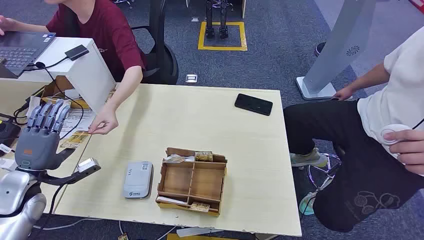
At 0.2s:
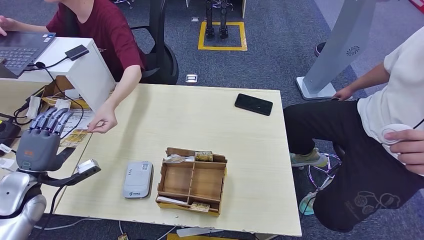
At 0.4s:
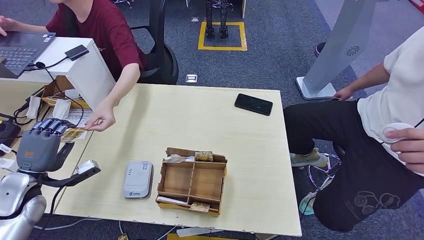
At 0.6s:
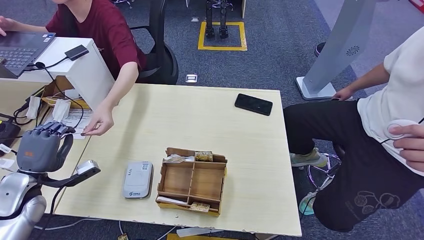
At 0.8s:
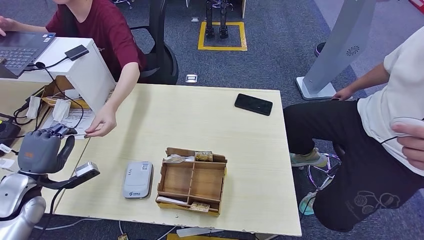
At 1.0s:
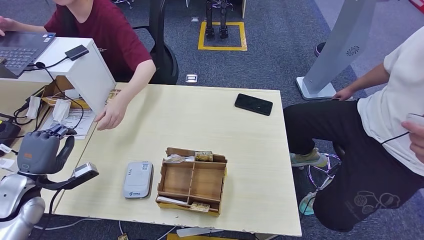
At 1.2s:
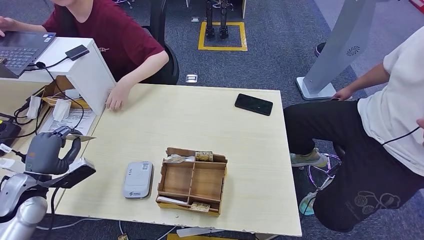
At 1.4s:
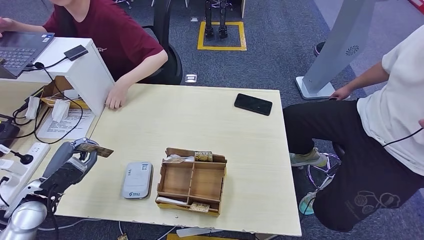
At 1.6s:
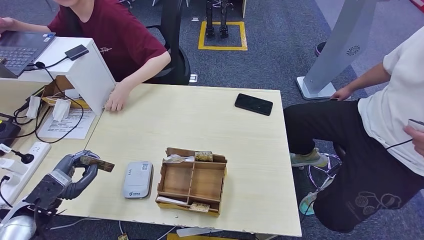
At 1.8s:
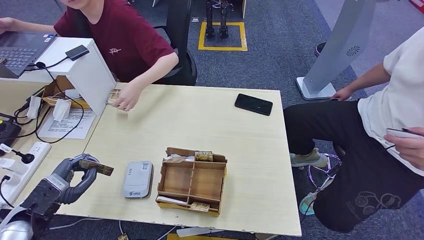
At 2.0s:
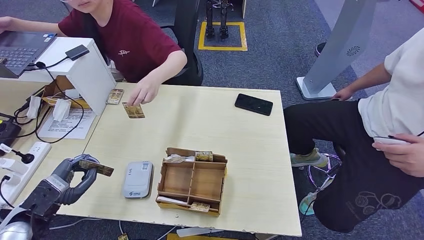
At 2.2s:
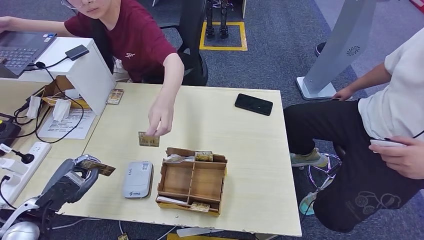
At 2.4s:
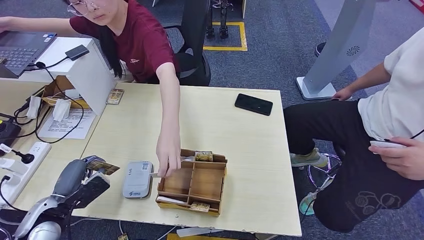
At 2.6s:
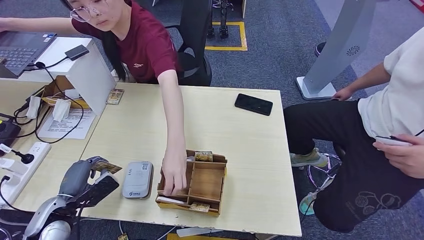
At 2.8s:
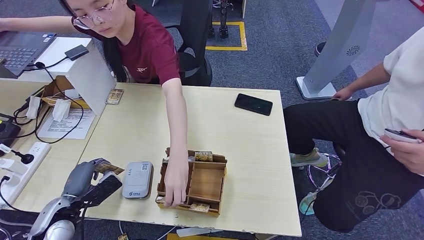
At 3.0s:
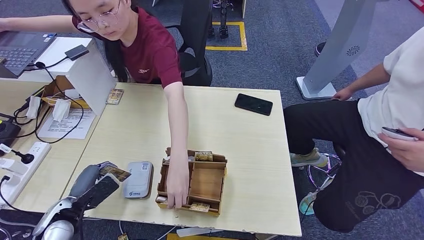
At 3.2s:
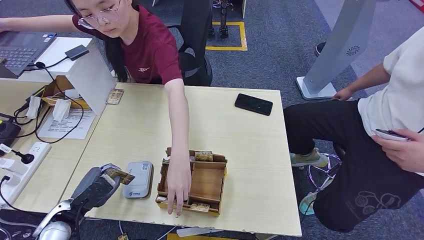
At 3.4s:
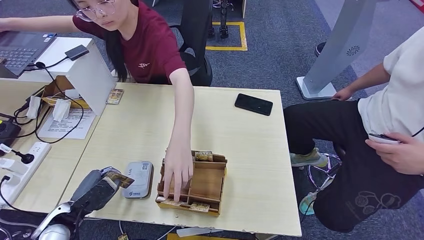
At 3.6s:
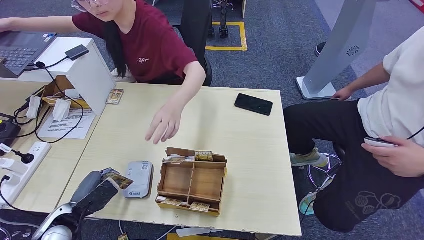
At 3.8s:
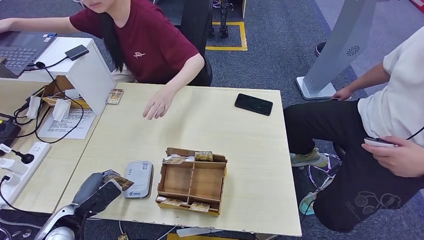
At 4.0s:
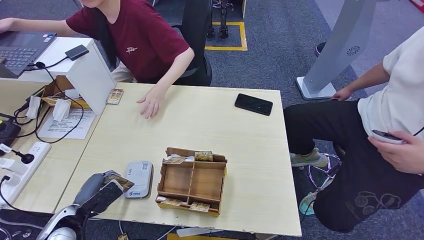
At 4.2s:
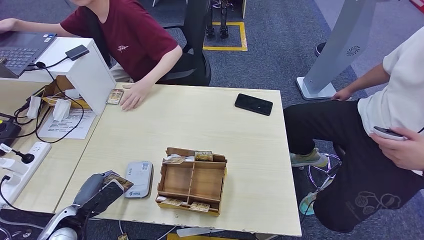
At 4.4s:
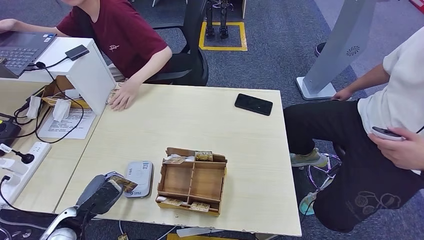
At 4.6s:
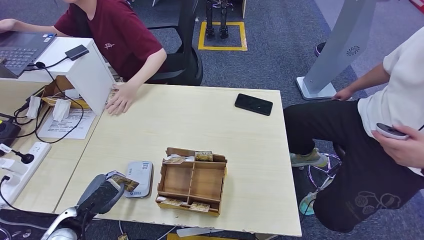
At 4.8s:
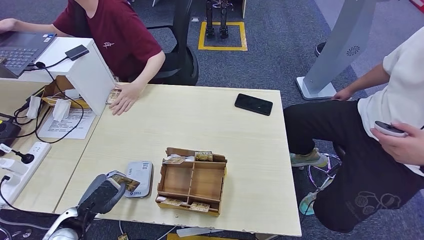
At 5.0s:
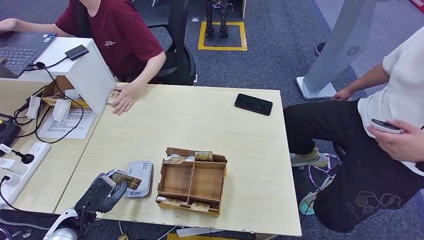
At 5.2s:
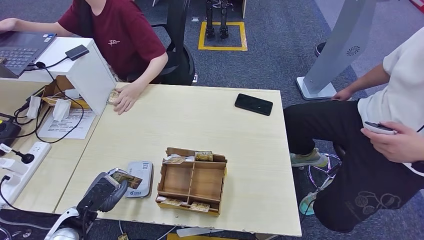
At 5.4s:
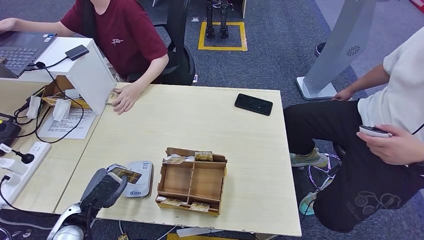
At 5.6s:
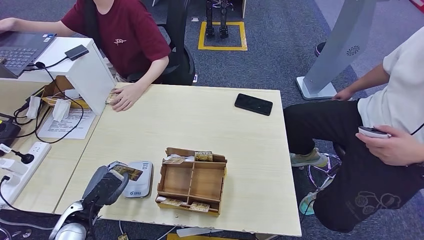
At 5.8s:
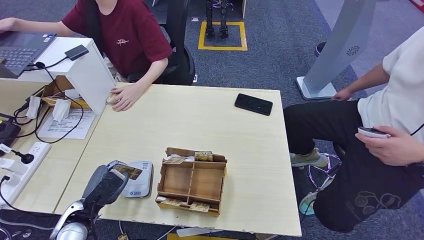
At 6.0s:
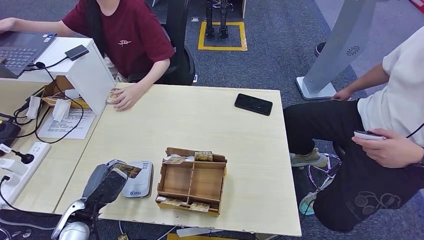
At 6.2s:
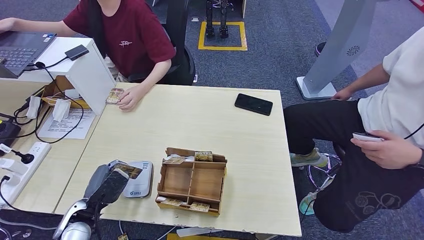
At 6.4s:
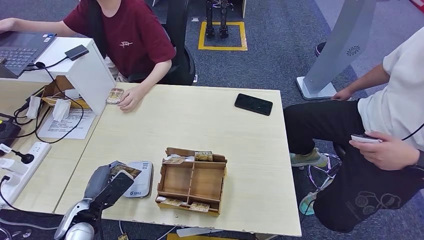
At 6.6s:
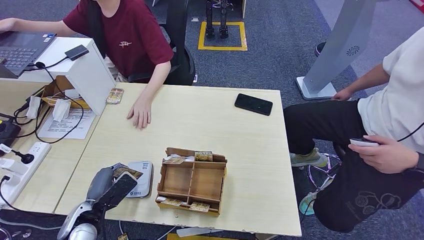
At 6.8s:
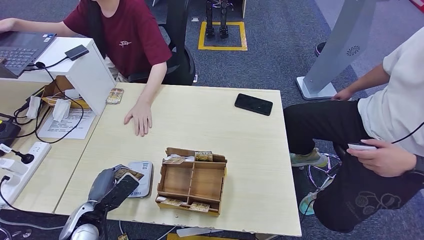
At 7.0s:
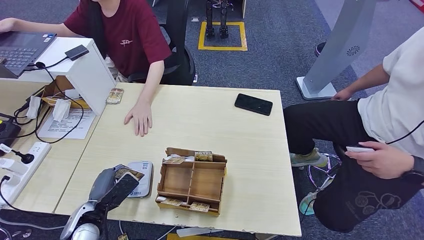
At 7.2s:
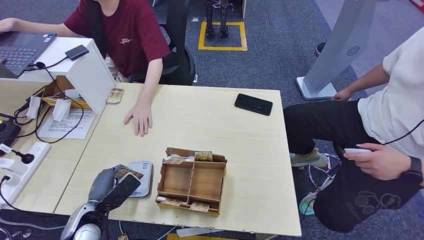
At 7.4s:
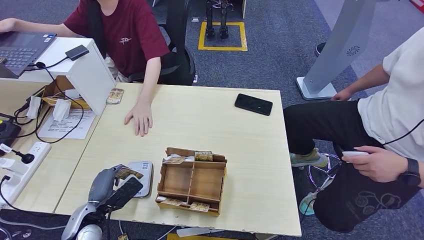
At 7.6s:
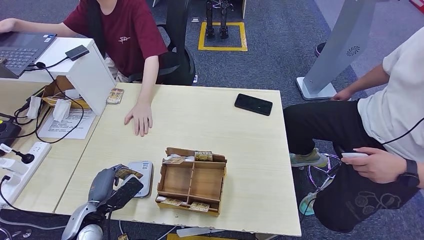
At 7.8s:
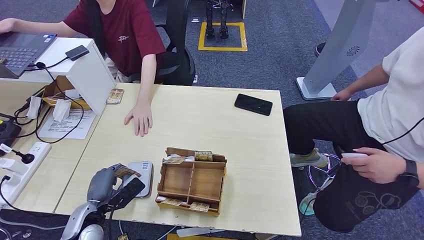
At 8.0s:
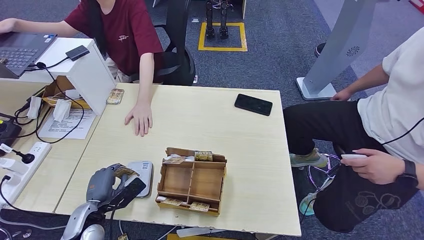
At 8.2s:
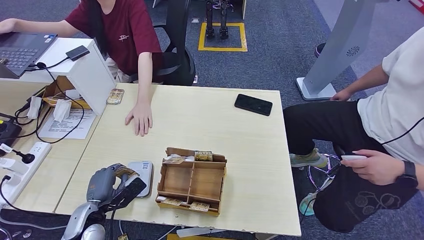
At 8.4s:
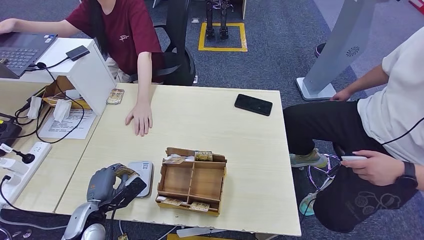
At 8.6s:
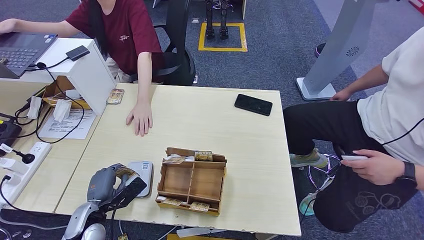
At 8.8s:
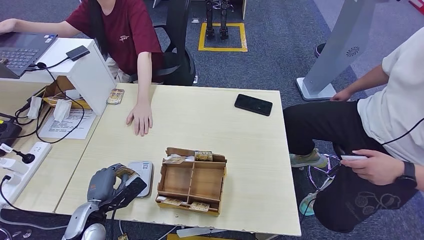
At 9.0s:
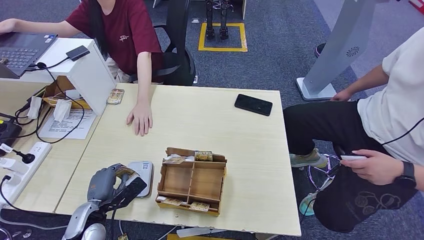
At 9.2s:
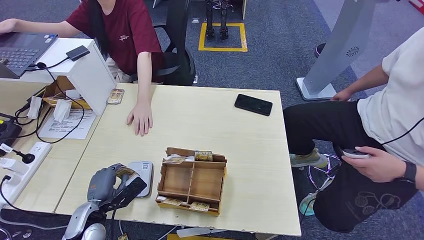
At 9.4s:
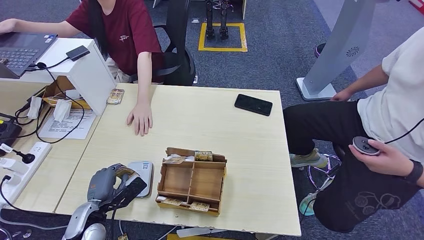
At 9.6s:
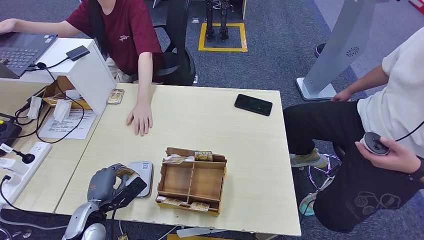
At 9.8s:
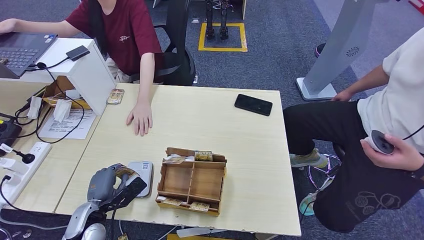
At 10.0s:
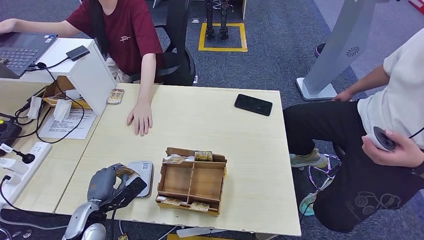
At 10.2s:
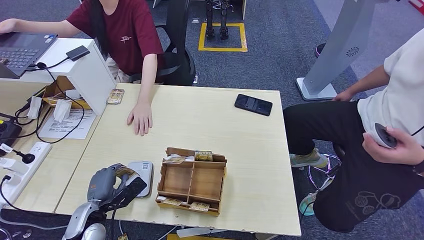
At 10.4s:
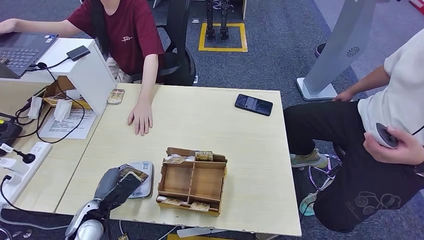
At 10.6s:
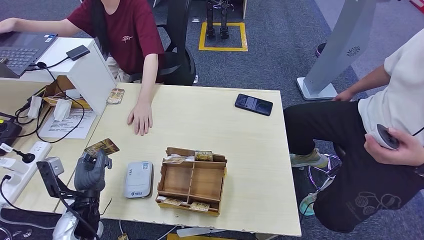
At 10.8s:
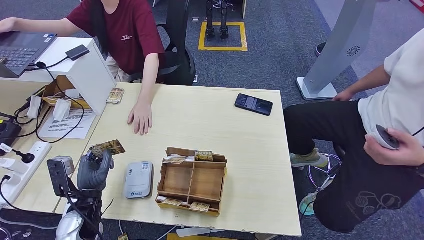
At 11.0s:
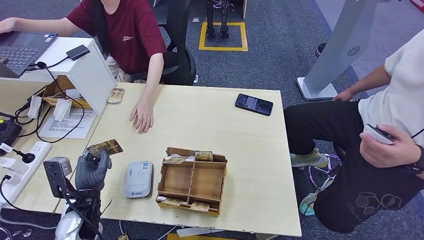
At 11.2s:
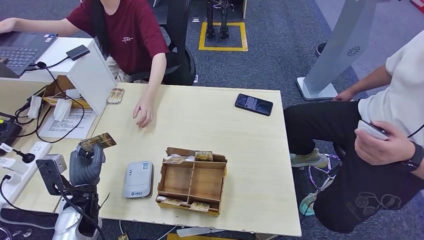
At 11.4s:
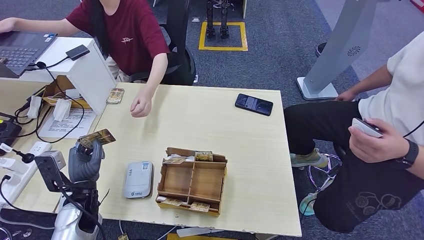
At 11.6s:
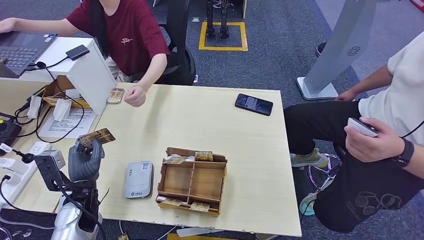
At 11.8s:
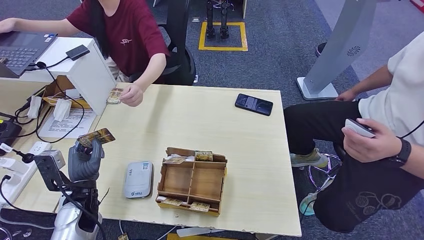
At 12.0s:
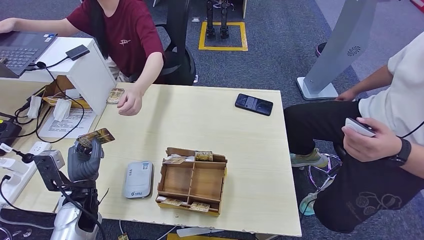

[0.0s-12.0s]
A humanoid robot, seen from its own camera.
Step, 0.0s to 0.8s: Take the ID card from the person's hand.
Step, 1.0s to 10.2s: Place the ID card on the card reader.
3.0s to 4.4s: The hands make only small movements.
4.4s to 7.6s: The hands move only a little.
7.6s to 10.4s: The hands make only small movements.
10.4s to 12.0s: The left hand heads upward, covering roughly 5 cm.

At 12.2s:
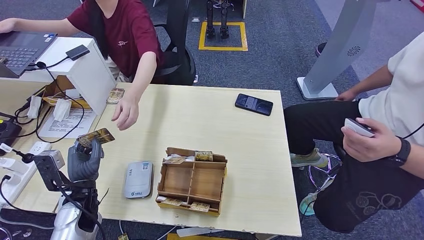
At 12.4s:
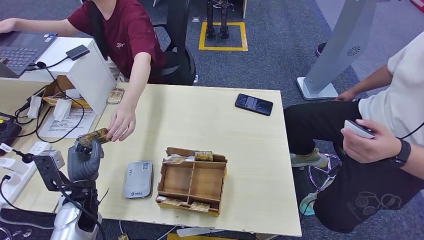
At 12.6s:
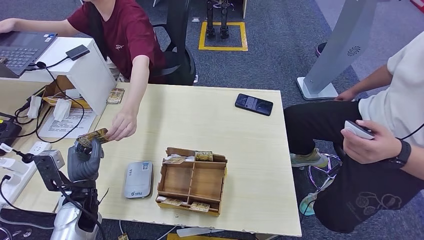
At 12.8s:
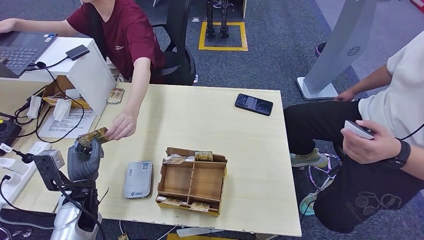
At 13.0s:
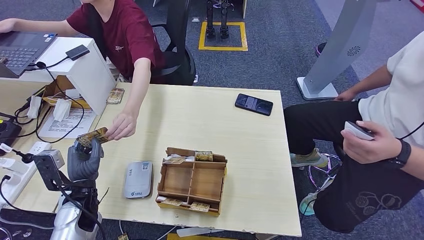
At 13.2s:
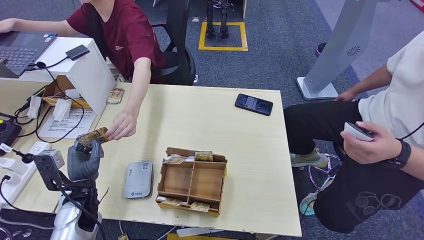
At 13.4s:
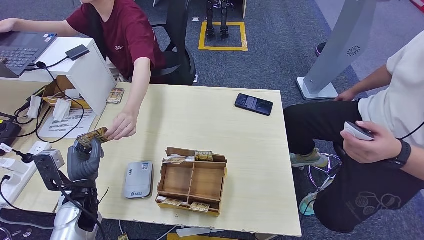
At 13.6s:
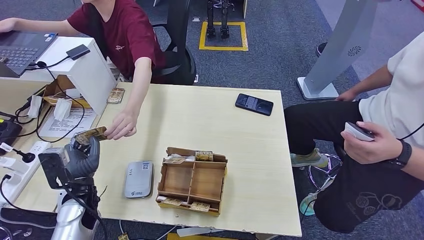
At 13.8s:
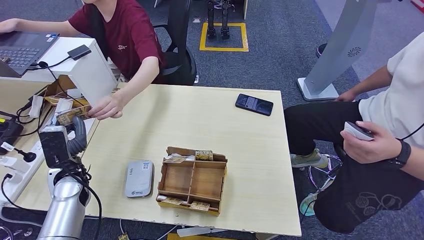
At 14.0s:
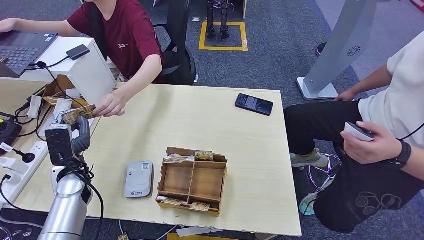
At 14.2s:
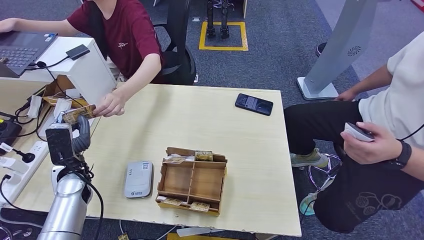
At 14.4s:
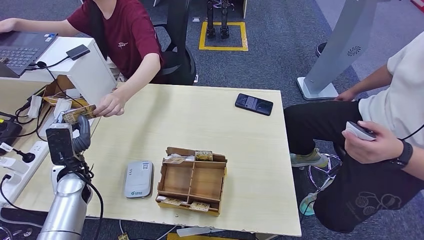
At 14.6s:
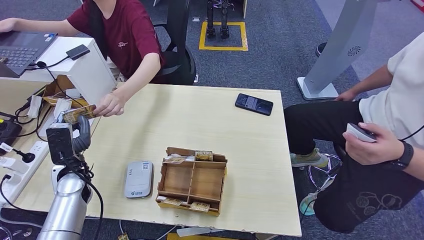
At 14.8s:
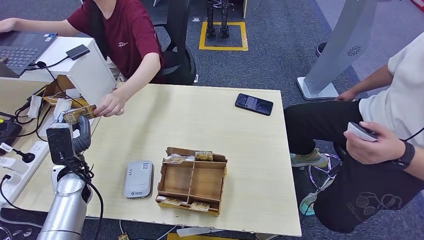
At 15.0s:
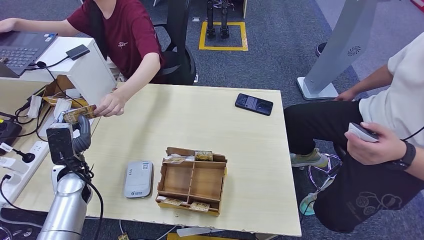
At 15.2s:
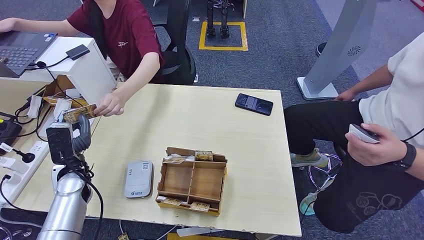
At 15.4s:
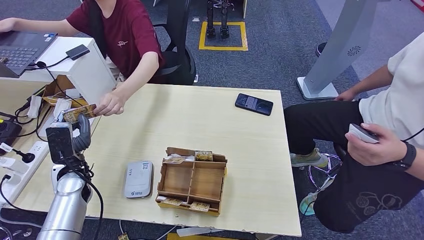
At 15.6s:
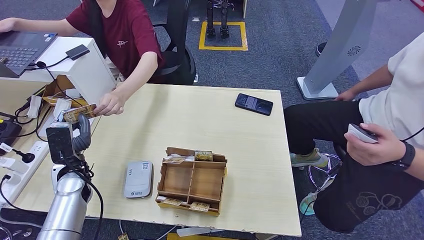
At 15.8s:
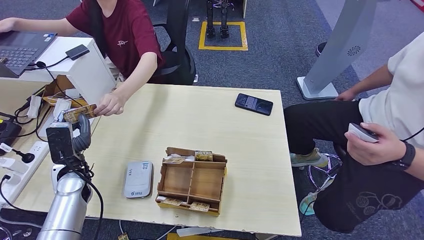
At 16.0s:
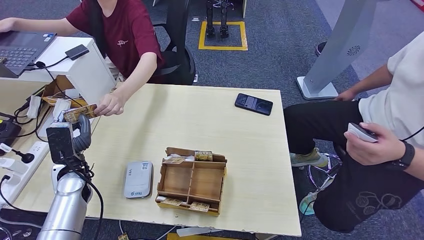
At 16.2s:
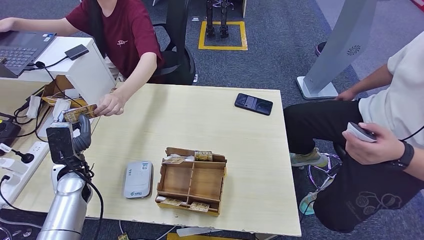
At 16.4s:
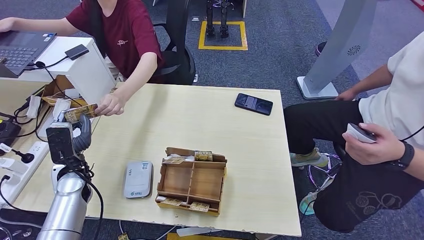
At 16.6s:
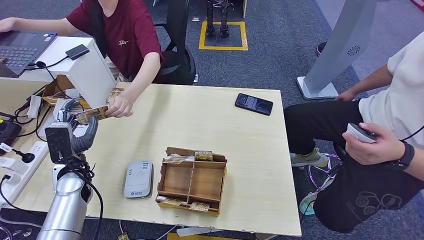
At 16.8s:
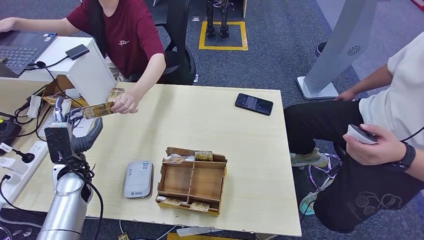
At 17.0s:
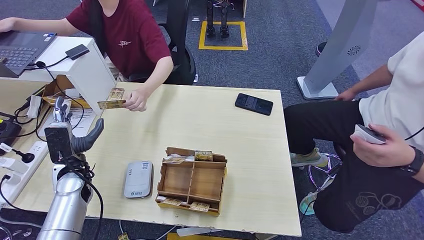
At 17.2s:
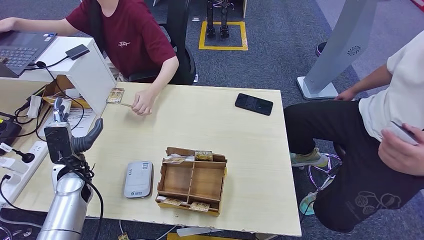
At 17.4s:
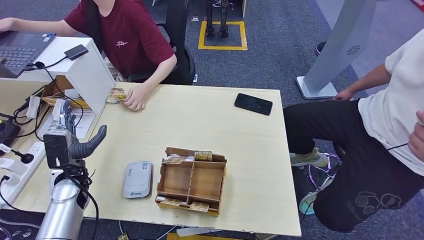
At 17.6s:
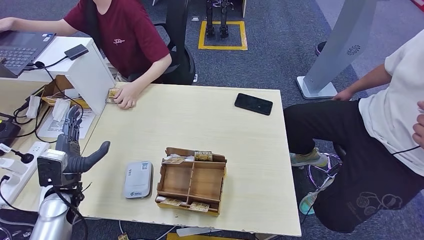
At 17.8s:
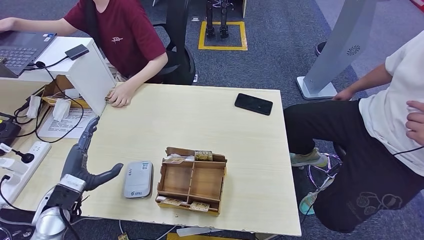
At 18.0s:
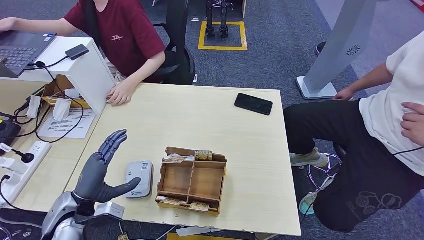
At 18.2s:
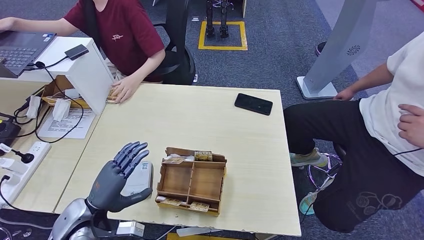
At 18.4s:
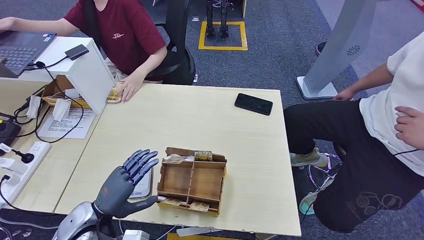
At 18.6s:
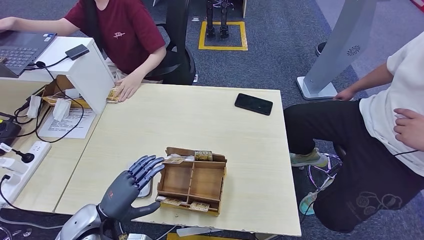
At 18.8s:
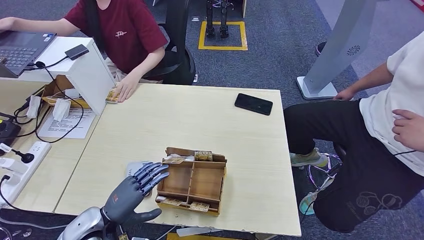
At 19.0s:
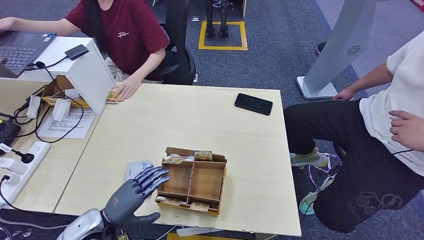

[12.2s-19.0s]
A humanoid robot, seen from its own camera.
Step, 12.2s to 16.6s: Hand the ID card to the person.
12.2s to 13.6s: There are only small adjustments of the hands.
13.6s to 15.0s: The left hand moves forward, about 5 cm.
15.0s to 16.2s: The two hands keep their place.
16.2s to 17.6s: The left hand changes place by some 5 cm.
17.6s to 19.0s: The left hand travels backward and to the right by roughly 10 cm.
